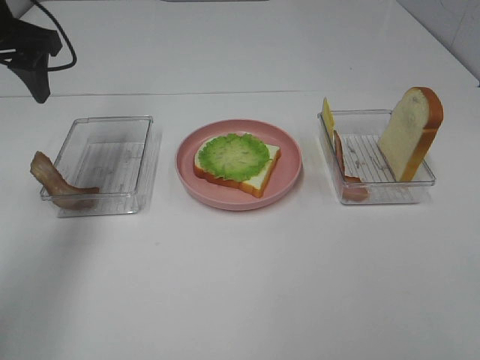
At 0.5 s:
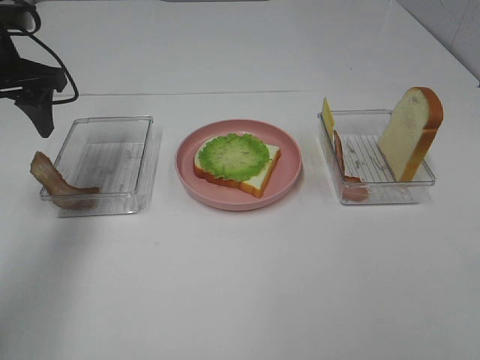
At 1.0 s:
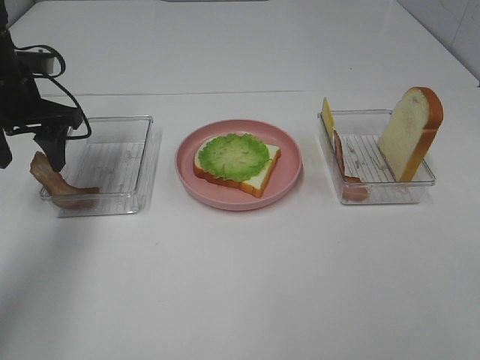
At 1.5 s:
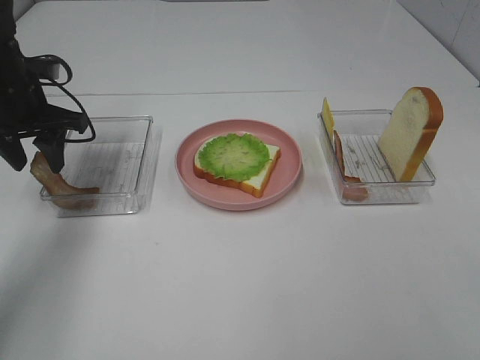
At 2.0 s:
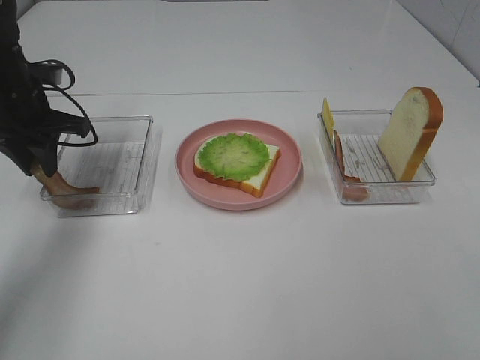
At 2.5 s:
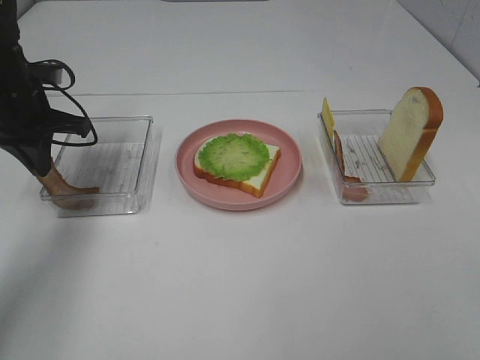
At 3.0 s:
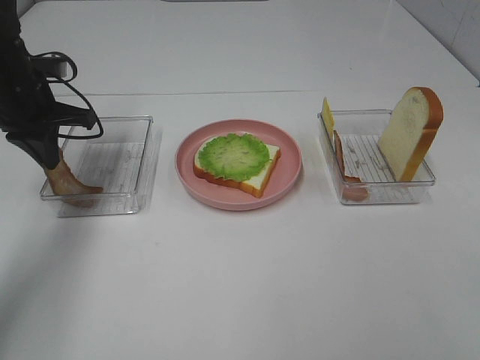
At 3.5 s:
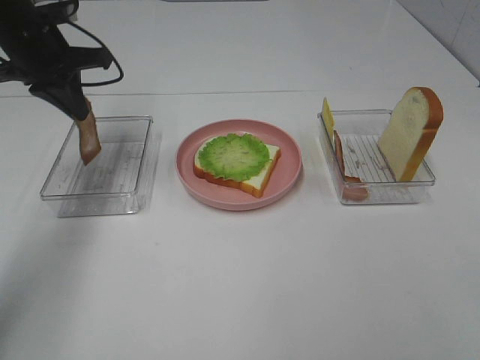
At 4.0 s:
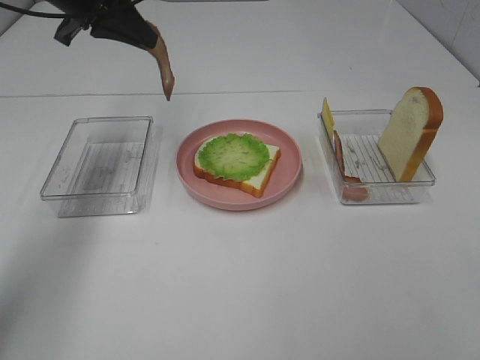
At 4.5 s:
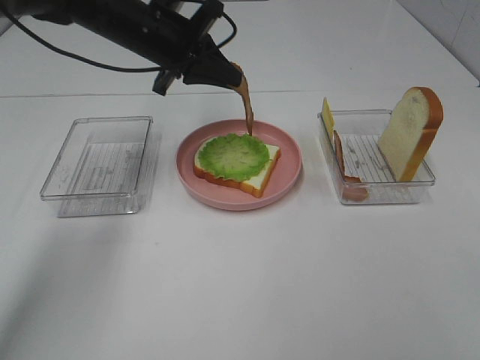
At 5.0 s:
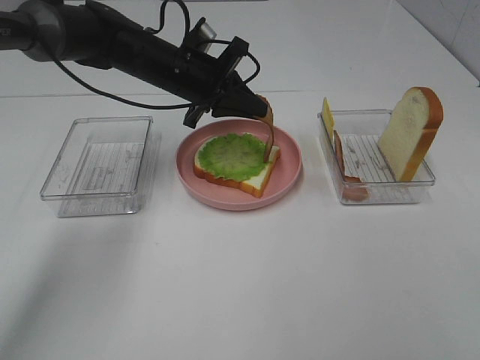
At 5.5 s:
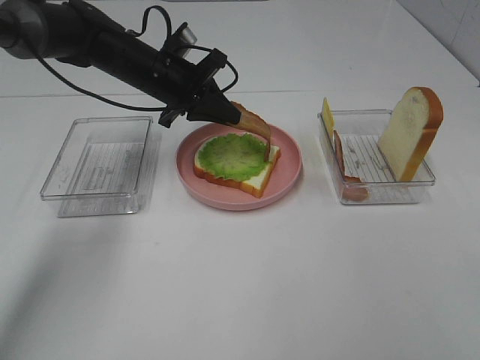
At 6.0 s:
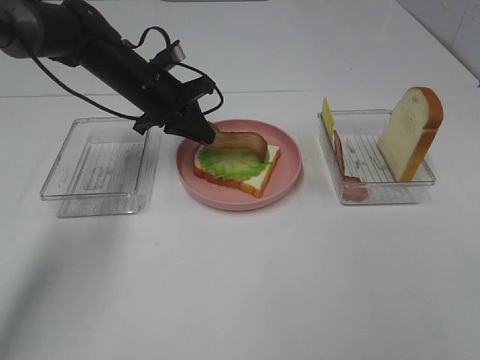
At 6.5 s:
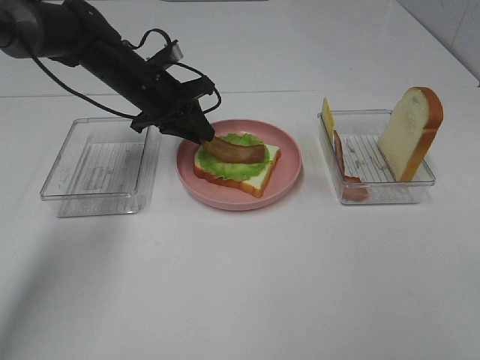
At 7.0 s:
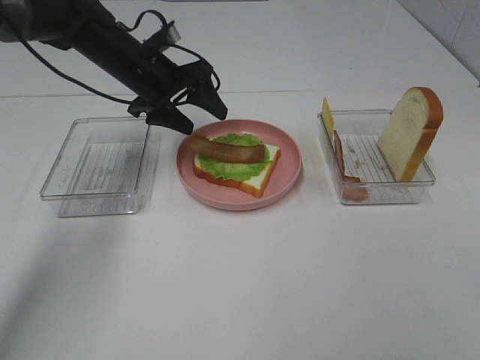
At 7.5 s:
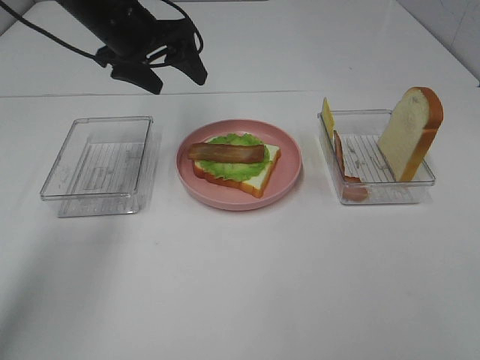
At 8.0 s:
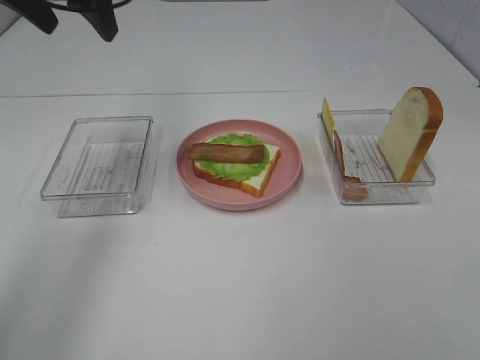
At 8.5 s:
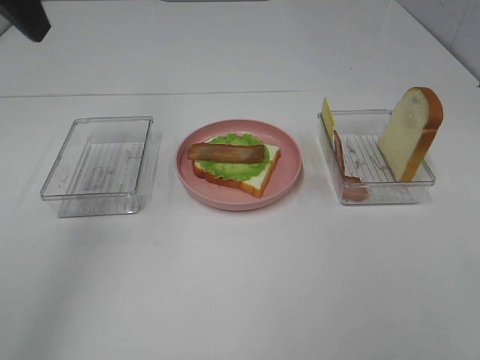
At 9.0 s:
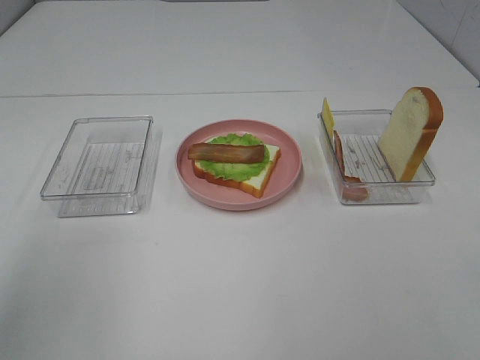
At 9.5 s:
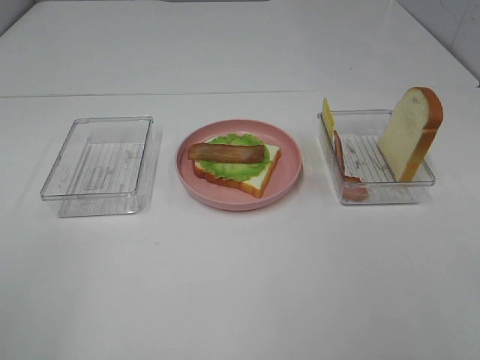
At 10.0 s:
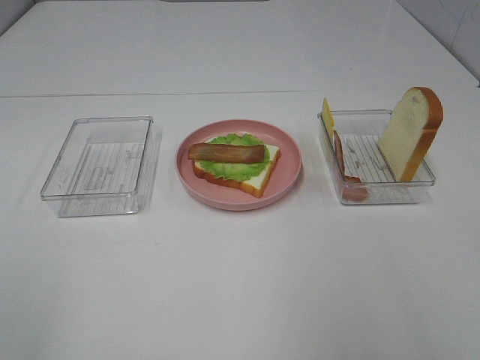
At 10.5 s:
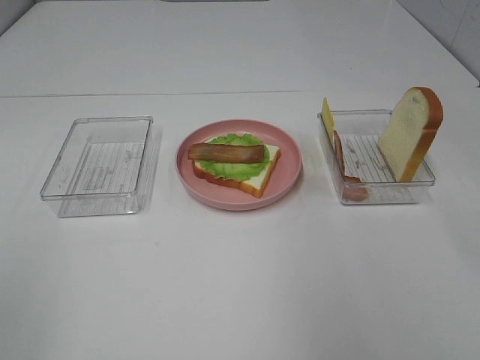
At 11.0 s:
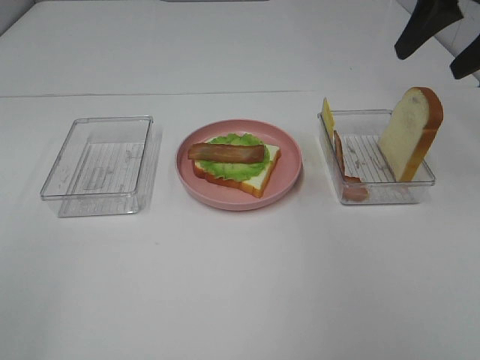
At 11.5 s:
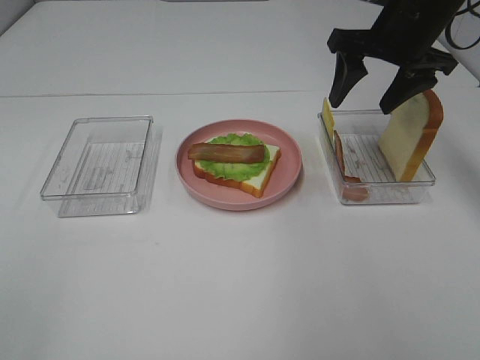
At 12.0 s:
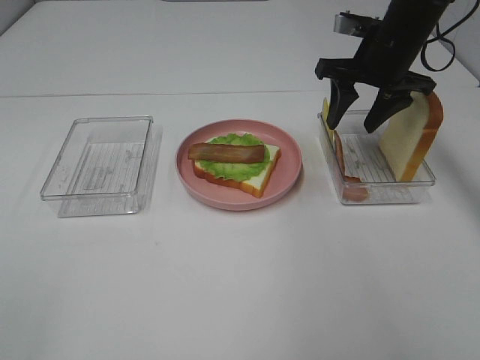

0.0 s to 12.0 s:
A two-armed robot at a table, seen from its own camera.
Task of the whole recording: Make sandwiches.
Step, 0.0 to 3.0 s: Left hand:grab the bacon.
Step, 3.5 to 7.0 s: Left hand:place bacon on lettuce slice.
0.0 to 2.0 s: The left gripper moves downward, some 10 cm, and closes up.
2.0 to 4.0 s: The left gripper moves upward and to the right, about 15 cm, and closes up.
4.0 to 6.0 s: The left gripper goes roughly 15 cm downward and to the right.
6.0 to 8.0 s: The left gripper travels upward by some 20 cm, and opens its fingers.
8.0 to 10.0 s: The left gripper heads backward, covering roughly 40 cm.
10.0 to 12.0 s: The right gripper moves forward and downward, some 35 cm.

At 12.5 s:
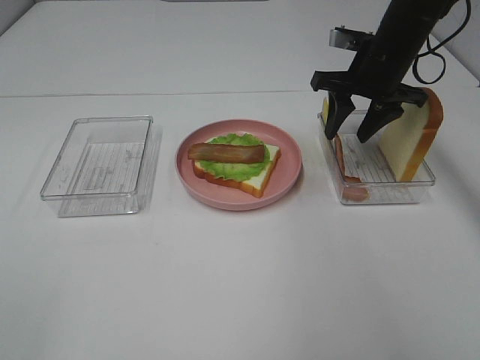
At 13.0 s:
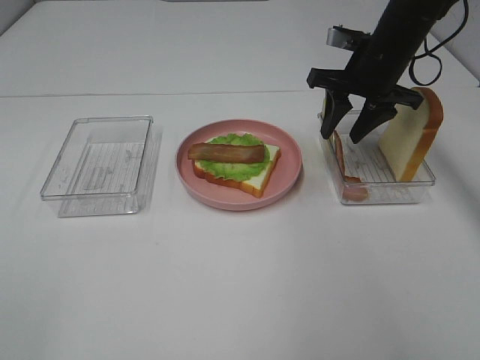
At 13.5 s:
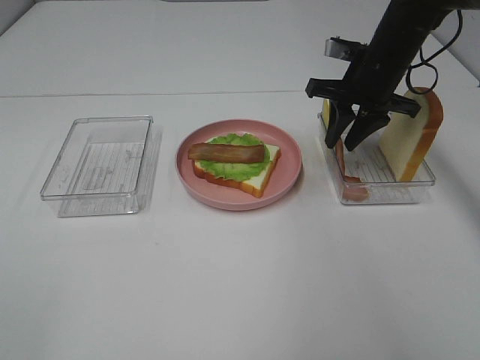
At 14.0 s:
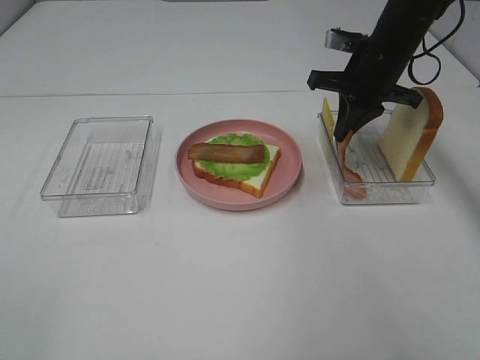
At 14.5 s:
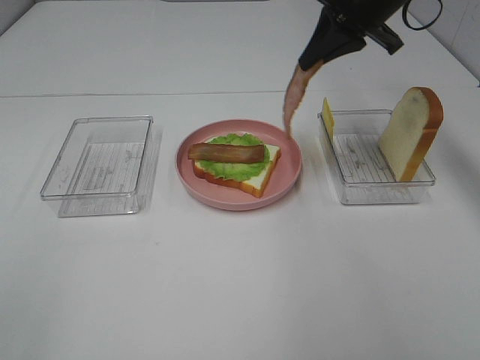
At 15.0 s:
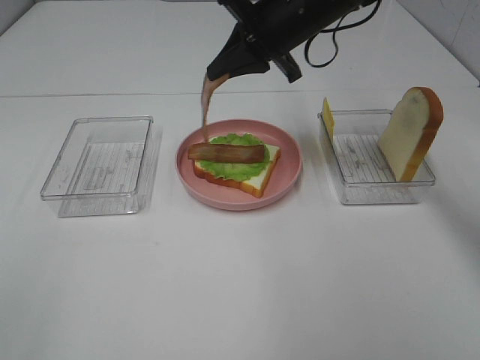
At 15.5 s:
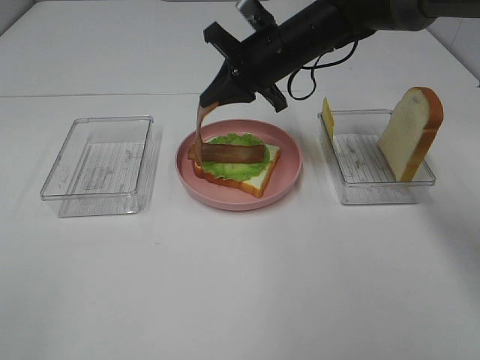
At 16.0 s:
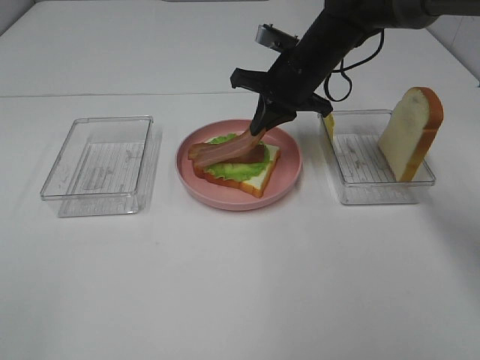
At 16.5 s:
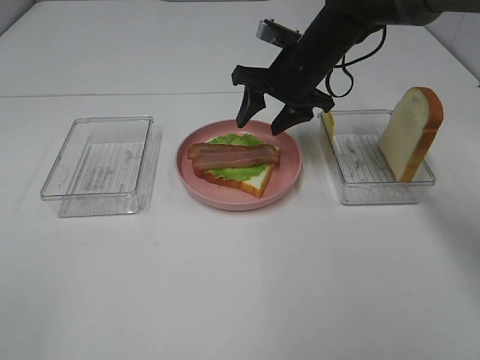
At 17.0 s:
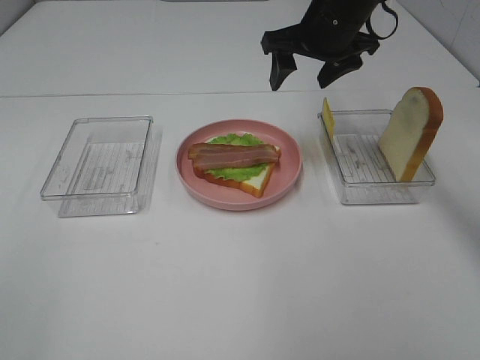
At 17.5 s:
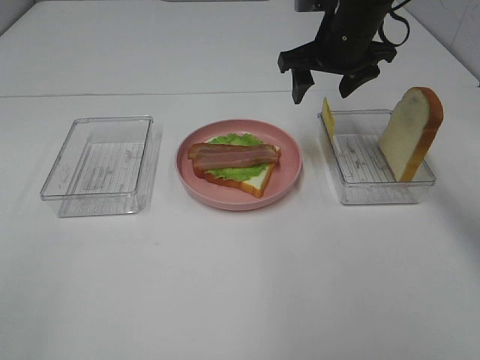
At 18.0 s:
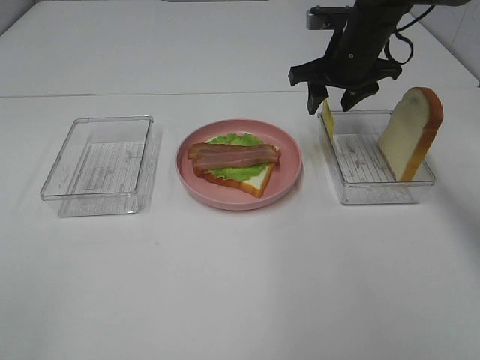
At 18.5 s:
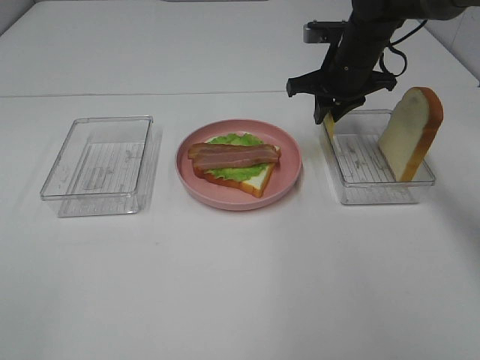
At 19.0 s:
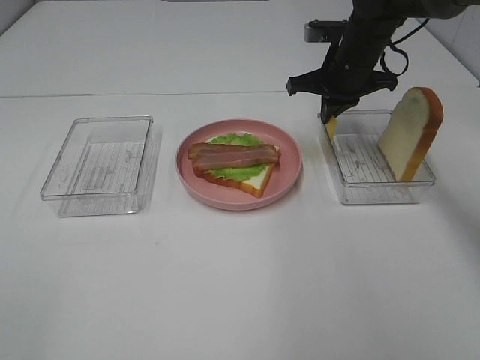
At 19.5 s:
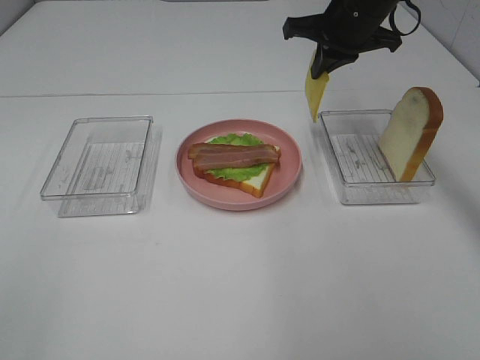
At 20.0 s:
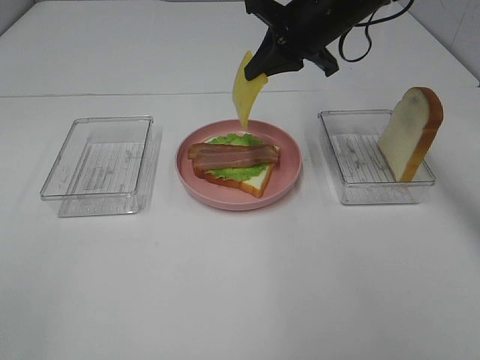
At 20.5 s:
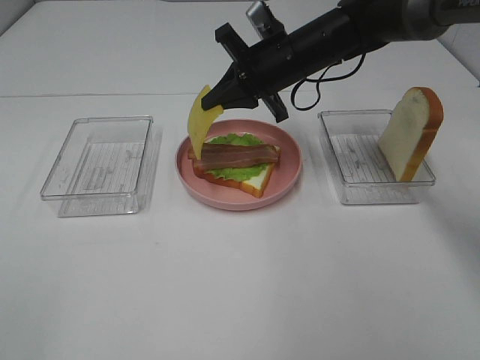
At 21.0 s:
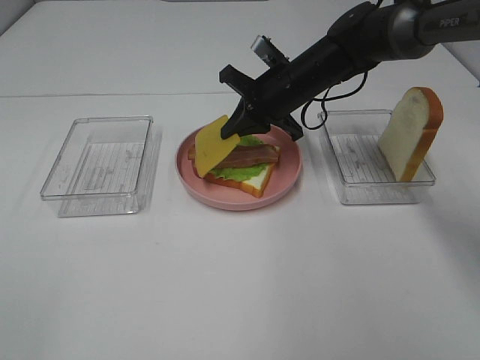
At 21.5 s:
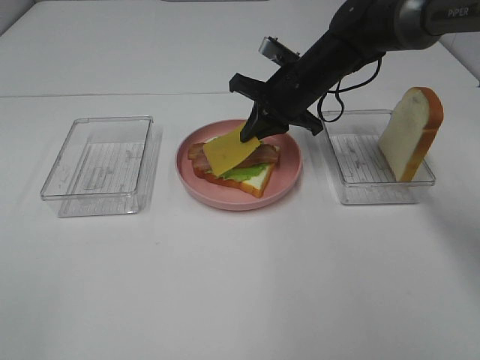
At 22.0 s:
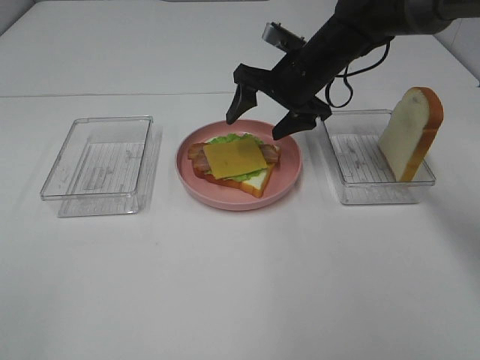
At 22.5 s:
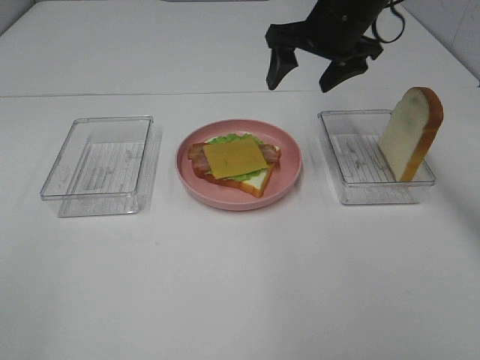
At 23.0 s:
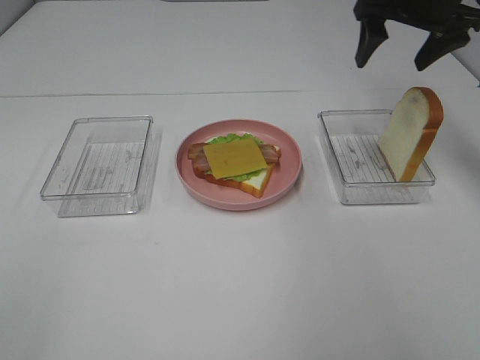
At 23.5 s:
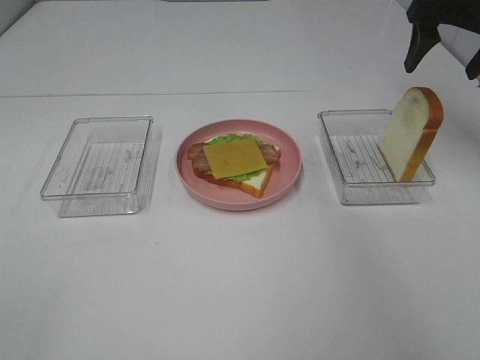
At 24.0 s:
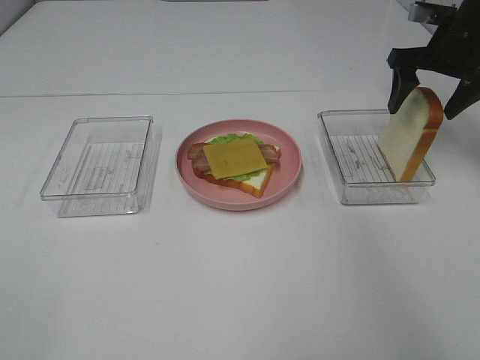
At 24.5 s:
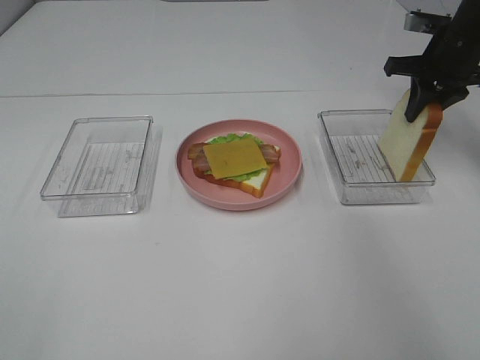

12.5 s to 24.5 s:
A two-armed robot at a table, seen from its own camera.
Task of the whole recording: Make sandwiches.
Step, 14.0 to 16.5 s: Right hand:place bacon on bacon.
Step, 17.0 to 19.0 s: Right hand:grab the cheese slice.
Step, 19.5 to 22.0 s: Right hand:place the cheese slice on top of the bacon.
Step, 22.5 to 24.5 s: Right hand:grab the bread slice.
12.5 to 14.5 s: The right gripper travels upward by some 10 cm, and closes.
14.5 to 16.5 s: The right gripper travels downward and to the left by roughly 15 cm, and opens its fingers.
16.5 to 18.5 s: The right gripper travels to the right by roughly 5 cm, and closes up.
18.5 to 20.5 s: The right gripper moves to the left, some 10 cm.
20.5 to 22.5 s: The right gripper heads upward and to the right, covering some 10 cm, and opens.
22.5 to 24.5 s: The right gripper shifts some 15 cm to the right, and closes up.

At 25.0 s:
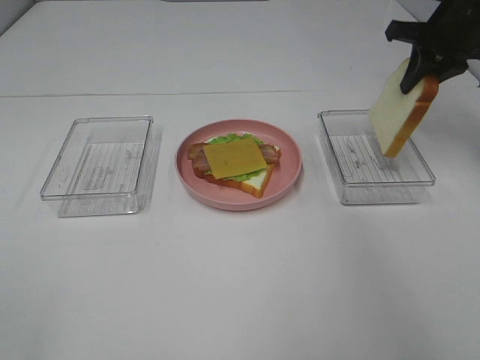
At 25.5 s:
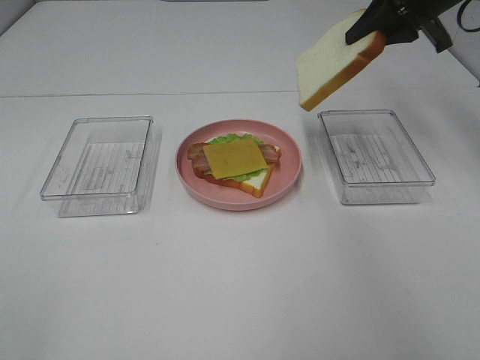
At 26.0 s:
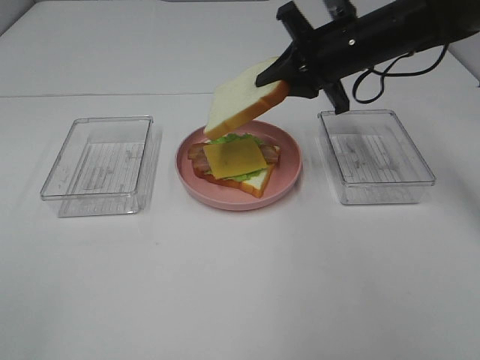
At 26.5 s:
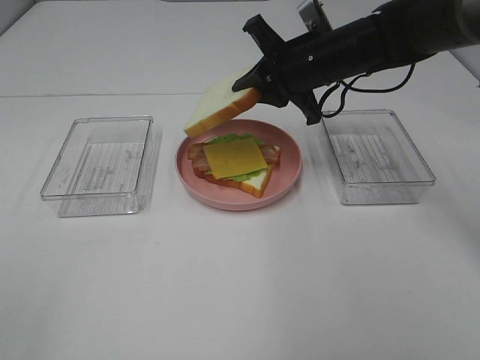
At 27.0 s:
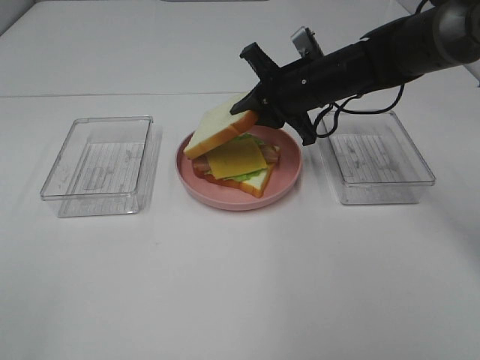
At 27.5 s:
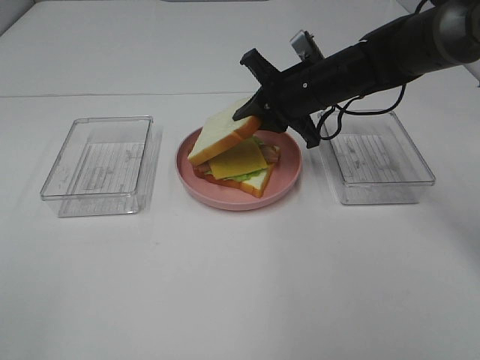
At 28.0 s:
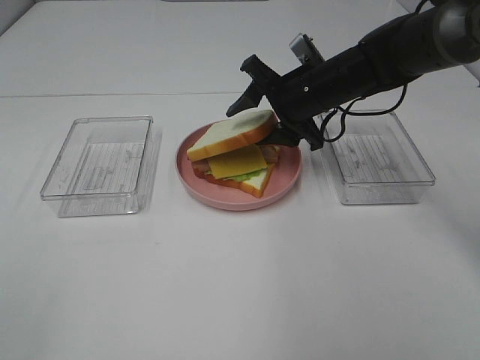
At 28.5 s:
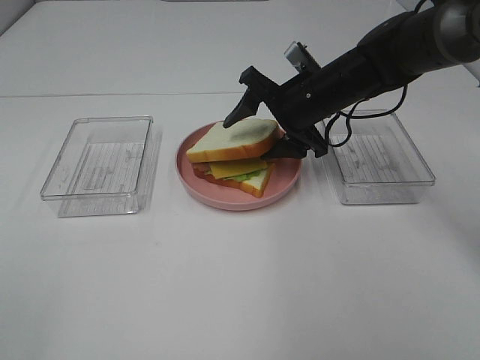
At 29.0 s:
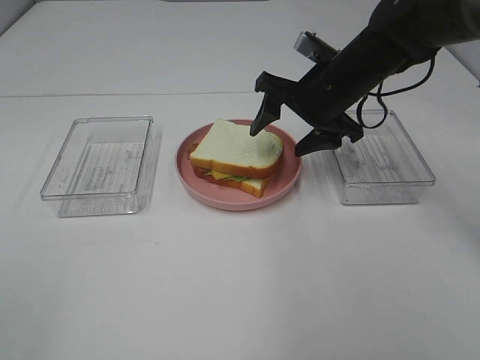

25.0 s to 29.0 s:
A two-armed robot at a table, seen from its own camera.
Task of the whole recording: Make sandwiches.
25.0 to 27.0 s: The right gripper travels to the left and downward by about 20 cm.
27.0 to 29.0 s: The right gripper opens its fingers.
